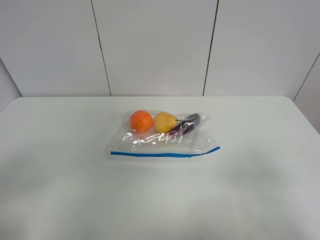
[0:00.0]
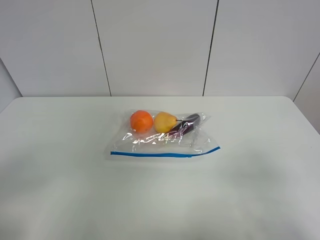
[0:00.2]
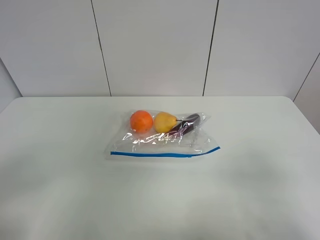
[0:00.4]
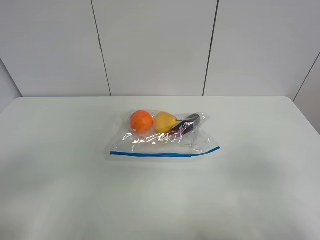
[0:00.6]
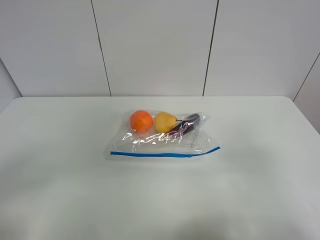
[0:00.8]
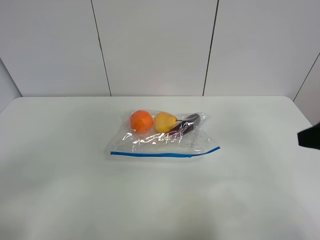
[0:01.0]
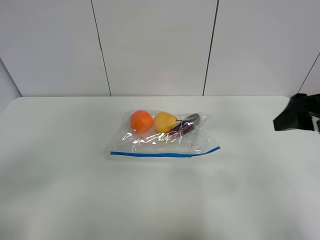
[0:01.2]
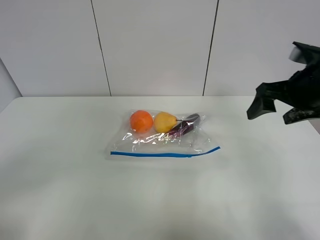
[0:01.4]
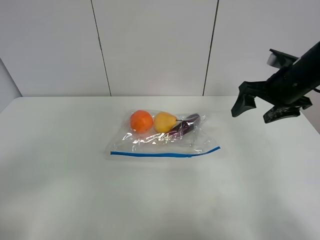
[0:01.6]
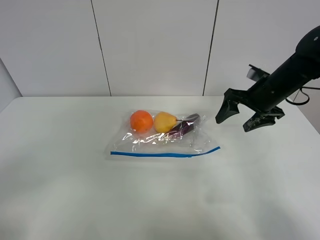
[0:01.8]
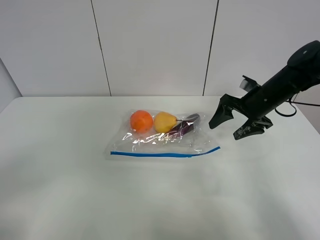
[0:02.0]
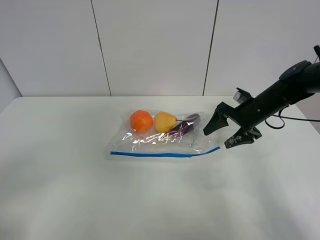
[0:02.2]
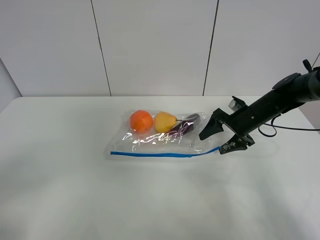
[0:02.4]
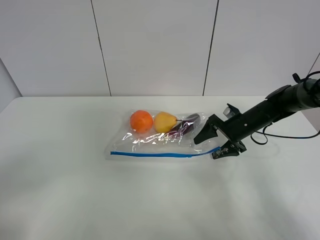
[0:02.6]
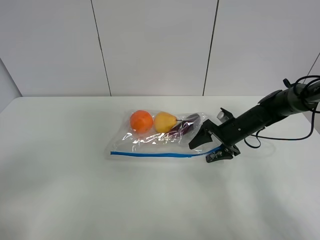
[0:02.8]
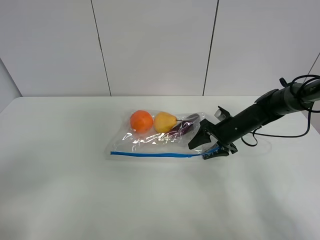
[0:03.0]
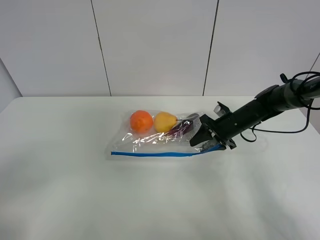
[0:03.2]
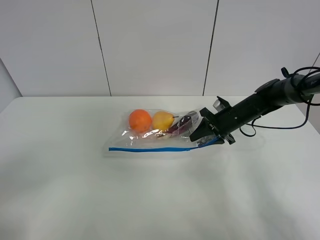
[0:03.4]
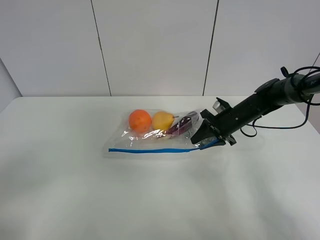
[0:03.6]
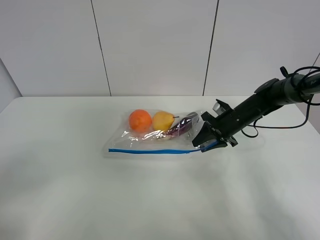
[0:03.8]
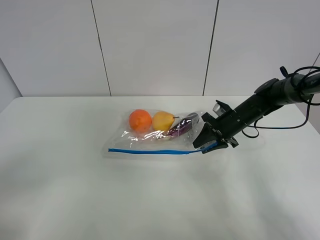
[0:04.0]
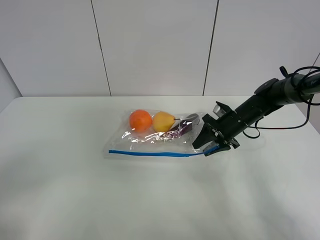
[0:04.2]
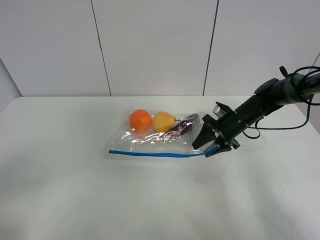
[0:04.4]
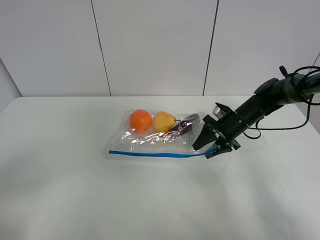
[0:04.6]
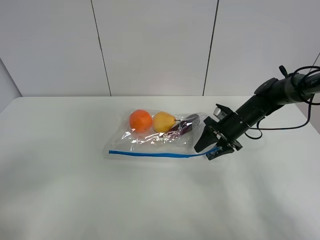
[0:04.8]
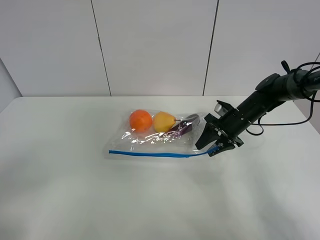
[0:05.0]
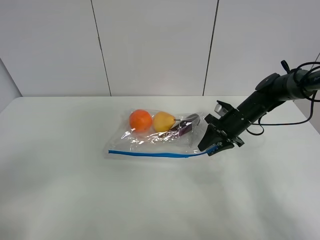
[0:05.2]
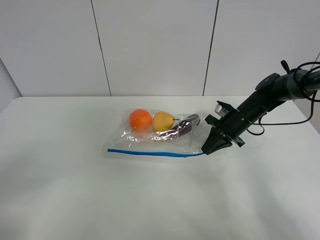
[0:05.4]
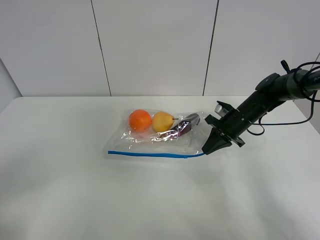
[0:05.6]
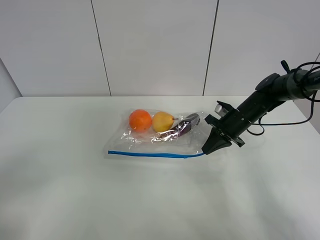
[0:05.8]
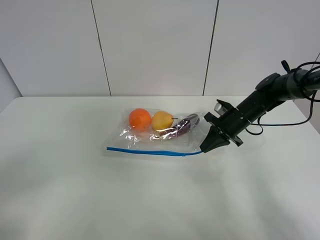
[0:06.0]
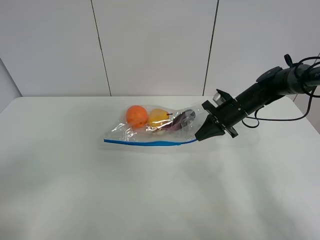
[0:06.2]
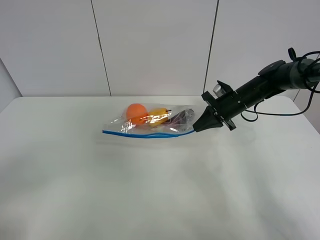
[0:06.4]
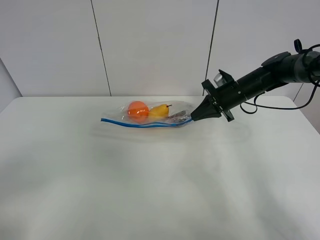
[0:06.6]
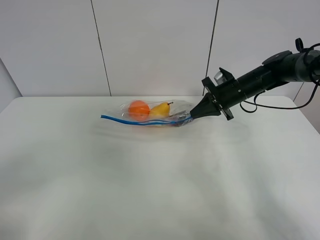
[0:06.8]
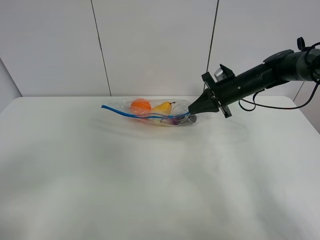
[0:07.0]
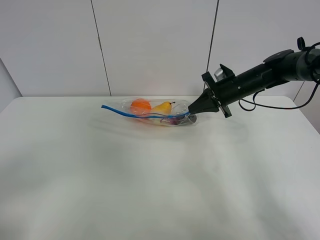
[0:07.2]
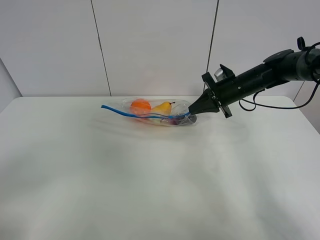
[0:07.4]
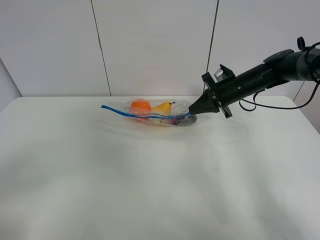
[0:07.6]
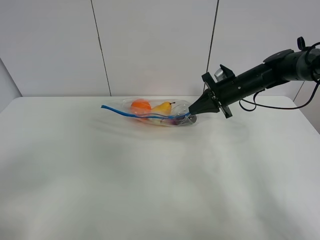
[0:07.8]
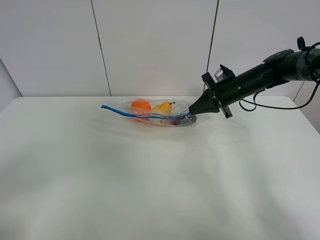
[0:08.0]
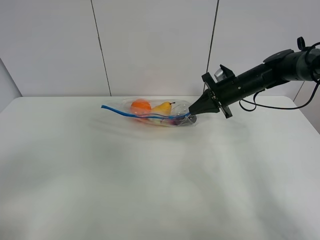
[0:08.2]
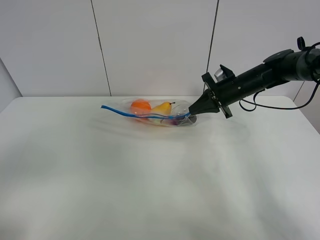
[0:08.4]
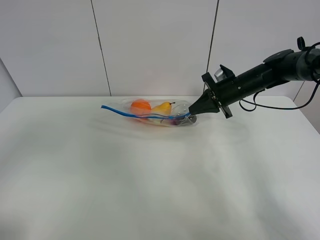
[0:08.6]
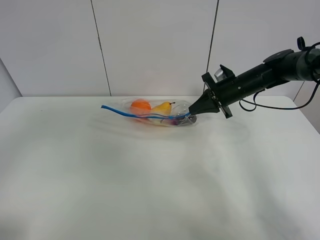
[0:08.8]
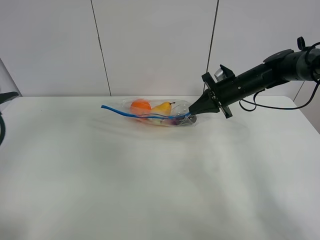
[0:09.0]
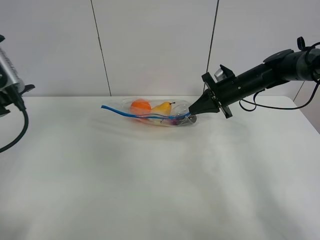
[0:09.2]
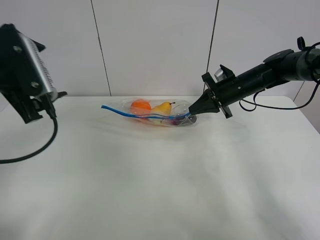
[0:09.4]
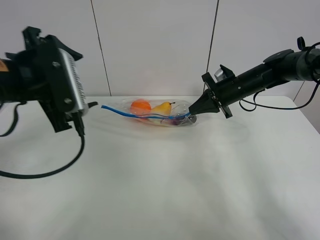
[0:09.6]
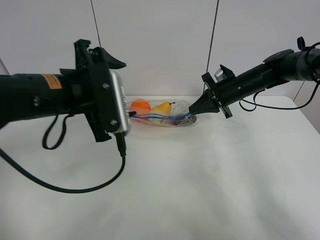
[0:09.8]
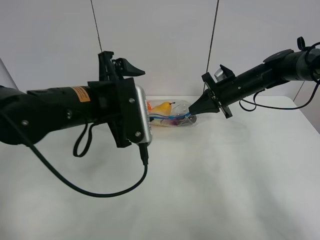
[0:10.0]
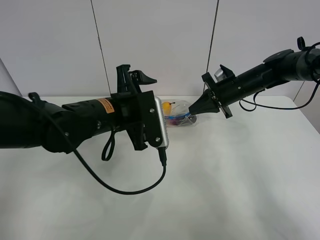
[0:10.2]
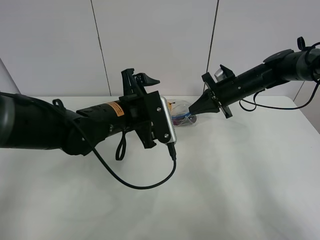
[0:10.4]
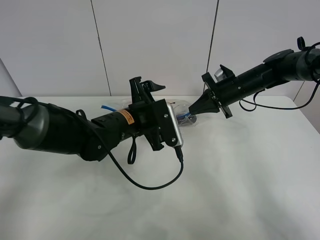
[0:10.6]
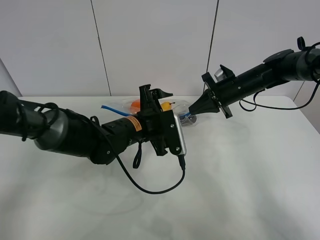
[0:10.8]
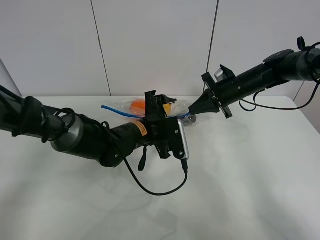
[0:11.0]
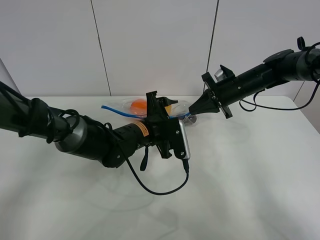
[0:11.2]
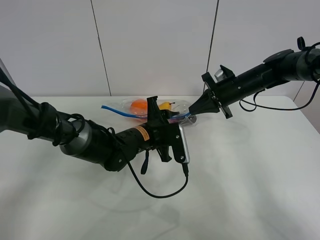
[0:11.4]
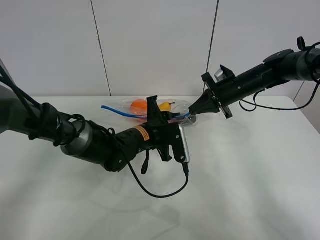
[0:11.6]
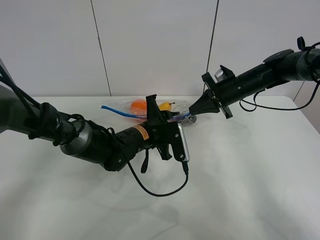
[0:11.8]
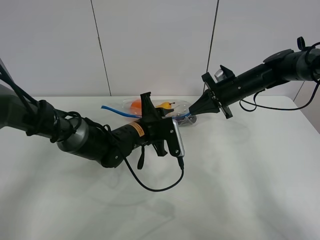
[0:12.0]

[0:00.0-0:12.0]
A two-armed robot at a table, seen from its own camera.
Step, 0:00.0 to 0:05.4: Grasp the fruit bag with right gripper.
Step, 0:05.6 to 0:07.4: Lift the fruit bag with your right gripper.
0:00.0 to 0:01.6: The right gripper moves forward, about 35 cm.
0:01.6 to 0:03.0: The right gripper heads downward, covering about 20 cm.
0:03.0 to 0:04.4: The grippers move only a little.
0:04.4 to 0:06.0: The right gripper closes up.
0:06.0 to 0:07.6: The right gripper goes approximately 5 cm upward.
0:07.6 to 0:09.0: The left gripper moves forward, about 20 cm.
0:09.0 to 0:10.4: The left gripper is displaced to the right, downward and forward by roughly 30 cm.
0:10.4 to 0:12.0: The left gripper heads downward, covering some 10 cm, and closes up.

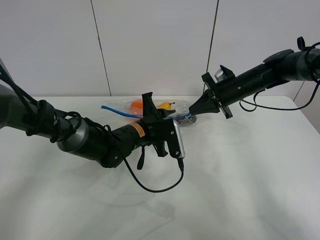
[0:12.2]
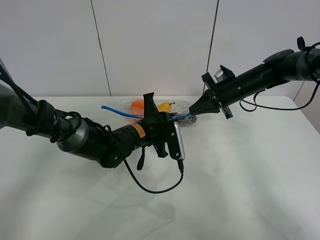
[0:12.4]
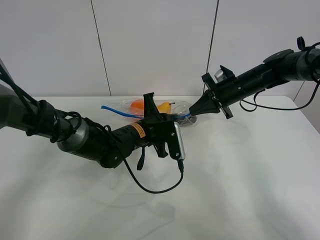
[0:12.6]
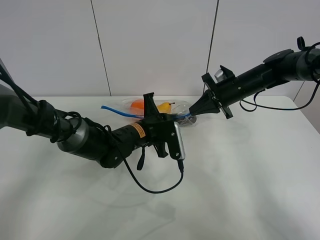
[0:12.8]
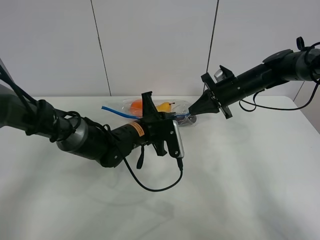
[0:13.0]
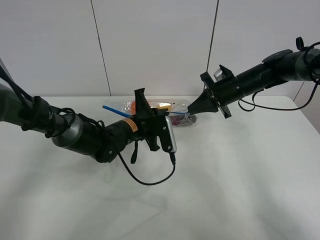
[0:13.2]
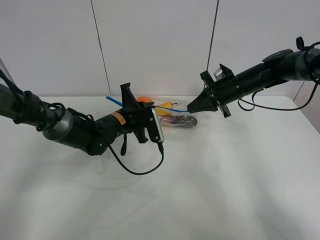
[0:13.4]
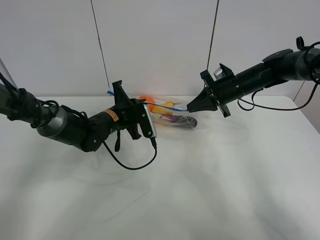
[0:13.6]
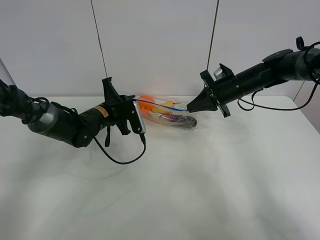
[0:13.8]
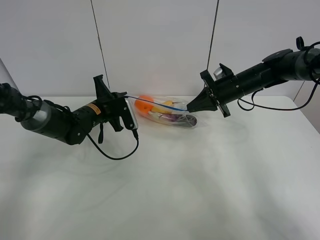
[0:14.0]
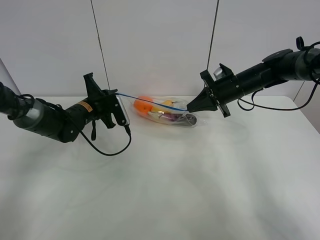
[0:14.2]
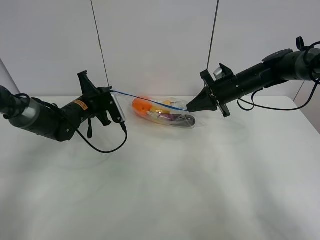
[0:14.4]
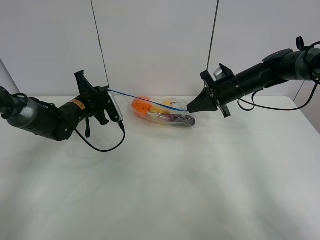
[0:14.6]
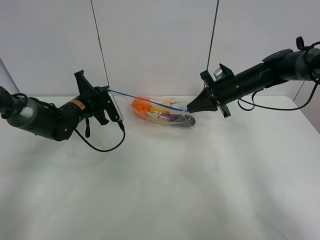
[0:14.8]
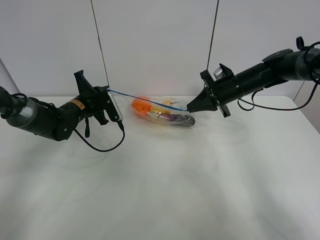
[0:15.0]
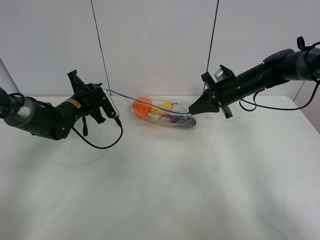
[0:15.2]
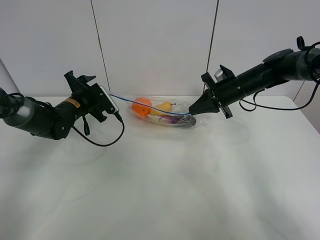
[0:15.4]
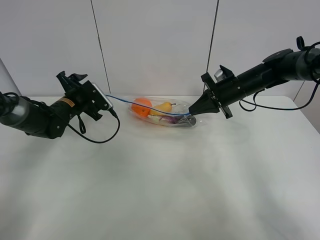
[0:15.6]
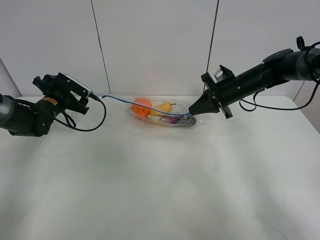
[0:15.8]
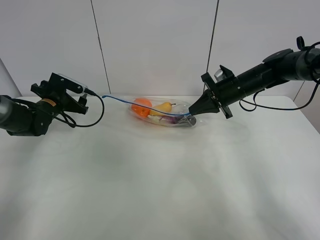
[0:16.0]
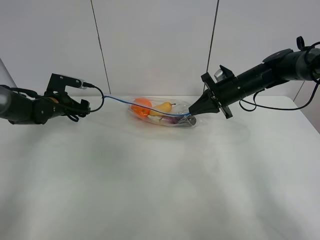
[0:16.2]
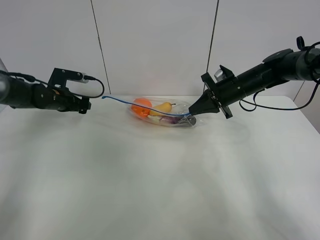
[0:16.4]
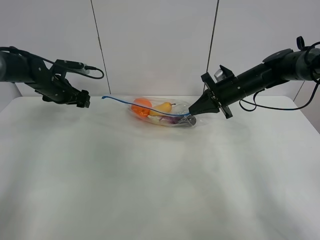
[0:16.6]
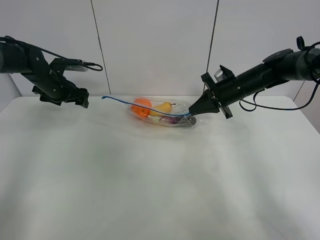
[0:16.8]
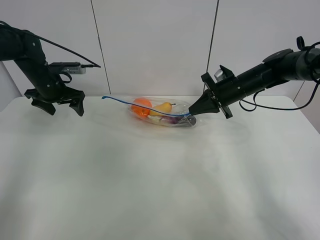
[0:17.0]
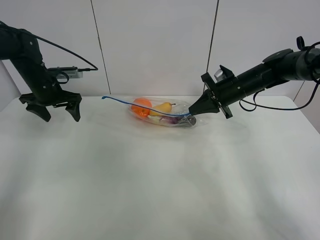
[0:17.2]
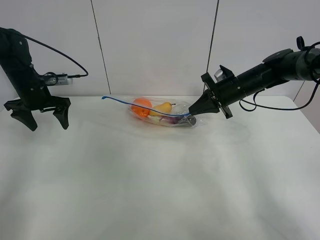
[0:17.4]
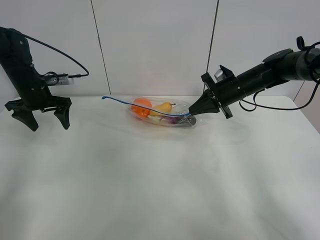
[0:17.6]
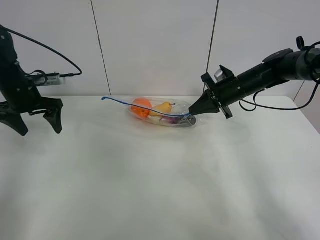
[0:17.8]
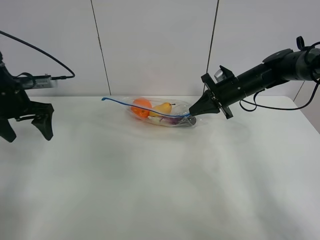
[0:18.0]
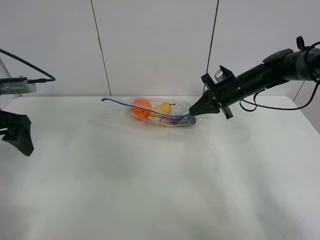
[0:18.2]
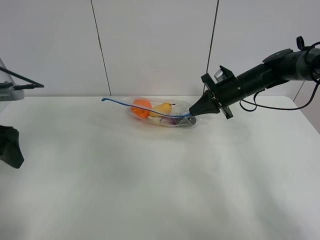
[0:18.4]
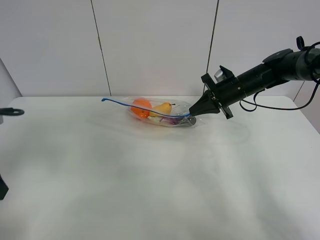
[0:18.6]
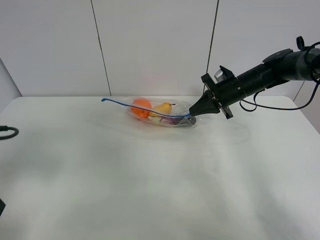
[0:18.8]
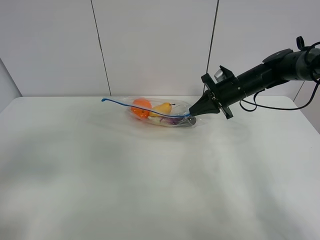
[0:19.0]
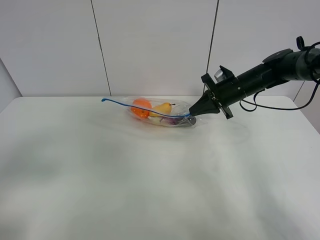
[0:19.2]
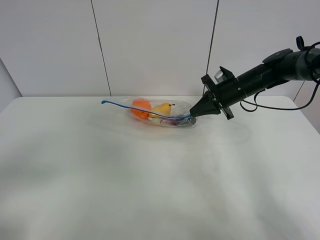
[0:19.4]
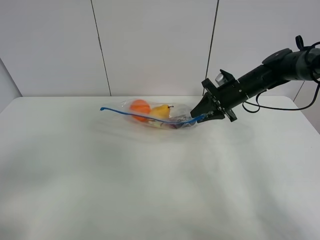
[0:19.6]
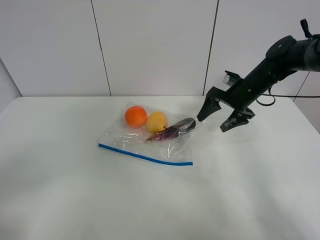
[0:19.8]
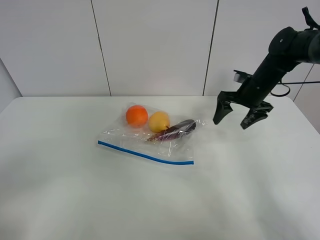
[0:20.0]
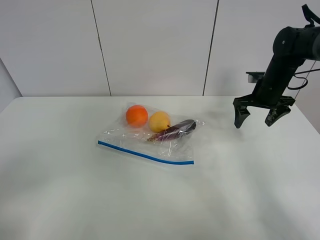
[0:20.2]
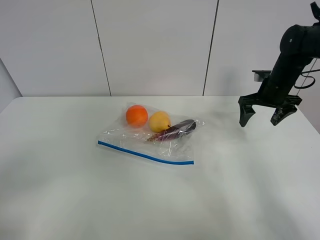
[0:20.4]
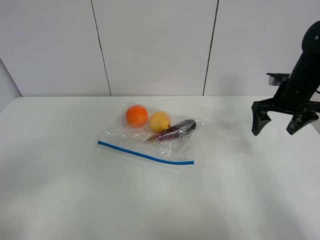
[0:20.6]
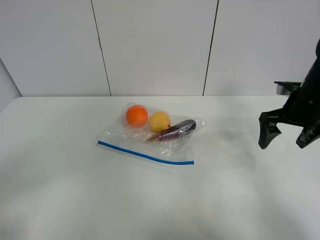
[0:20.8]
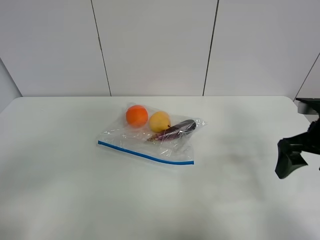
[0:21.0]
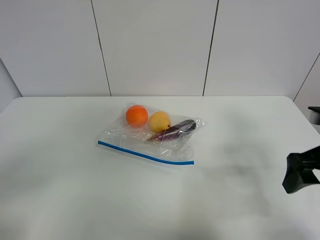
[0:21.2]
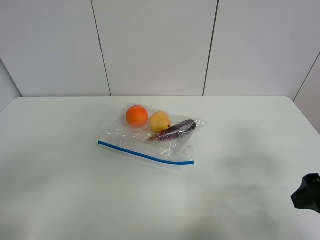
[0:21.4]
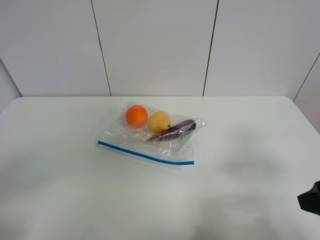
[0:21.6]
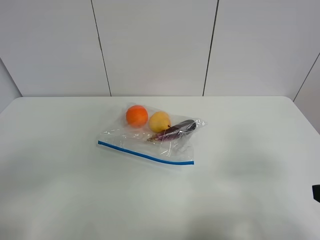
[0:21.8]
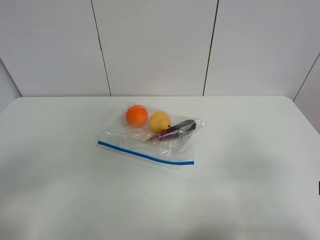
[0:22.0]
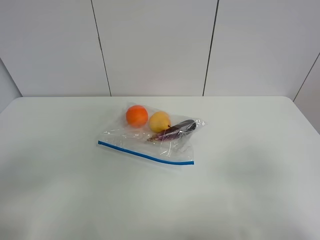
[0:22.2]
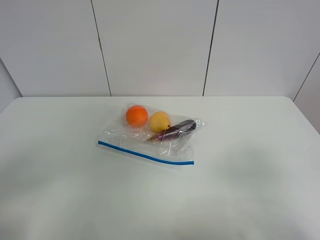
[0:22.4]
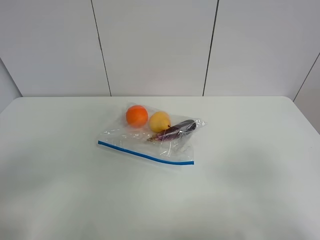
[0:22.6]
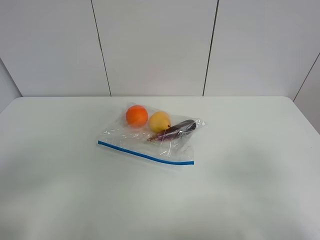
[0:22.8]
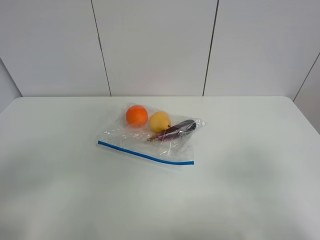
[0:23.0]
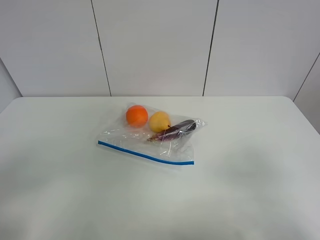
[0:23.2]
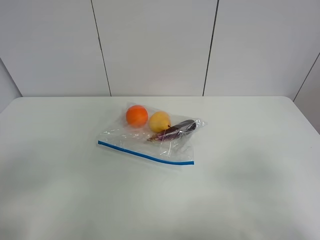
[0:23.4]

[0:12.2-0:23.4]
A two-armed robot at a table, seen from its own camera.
Step, 0:12.2 to 0:15.4: Pull the fruit bag with left gripper.
0:12.2 to 0:13.8: The left gripper moves to the left and forward, about 10 cm.
0:13.8 to 0:15.4: The left gripper moves to the left, about 10 cm, and opens.
0:15.4 to 0:17.0: The left gripper moves upward and to the left, about 10 cm.
0:17.0 to 0:18.6: The left gripper heads backward, covering about 30 cm.
0:18.6 to 0:20.2: The left gripper shifts roughly 15 cm backward, while the right gripper heads to the right, covering roughly 10 cm, and opens.
0:20.2 to 0:21.8: The right gripper is displaced backward by roughly 35 cm.
